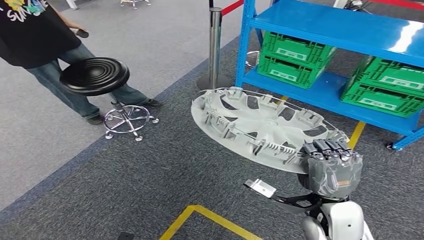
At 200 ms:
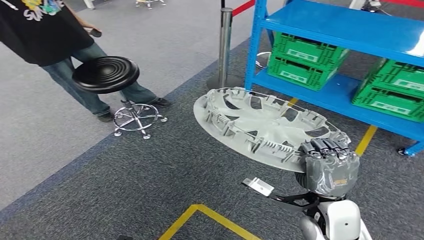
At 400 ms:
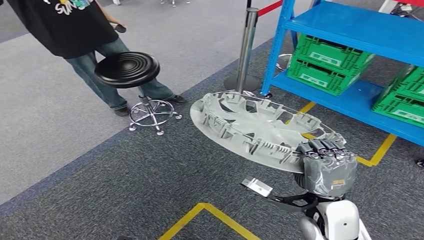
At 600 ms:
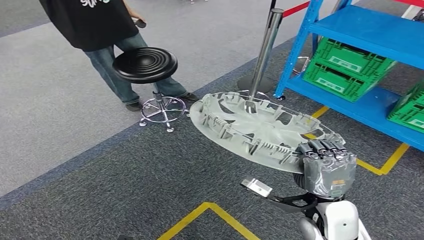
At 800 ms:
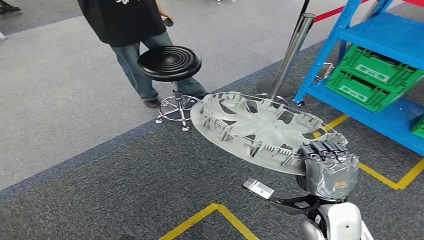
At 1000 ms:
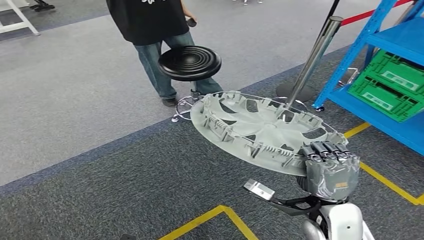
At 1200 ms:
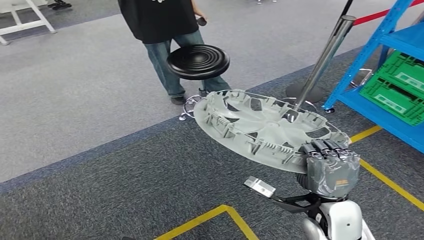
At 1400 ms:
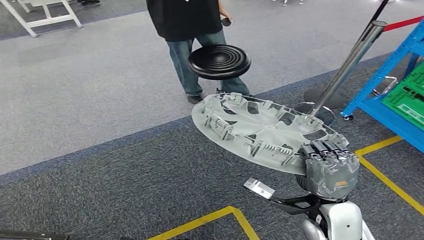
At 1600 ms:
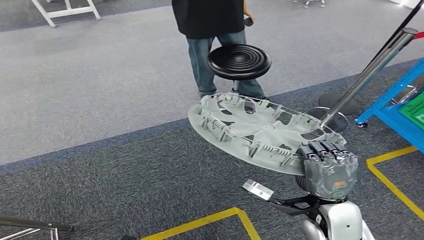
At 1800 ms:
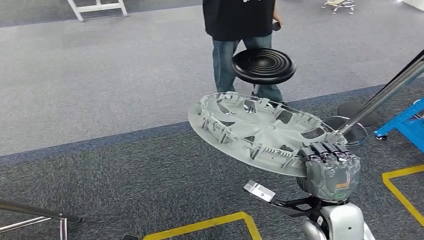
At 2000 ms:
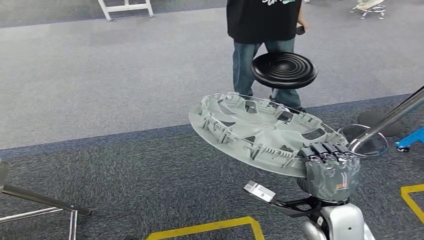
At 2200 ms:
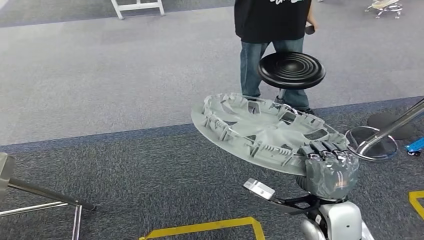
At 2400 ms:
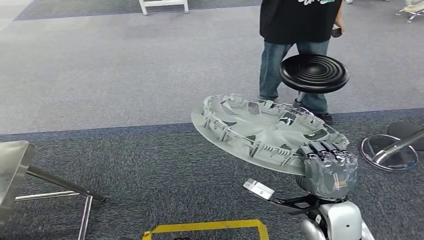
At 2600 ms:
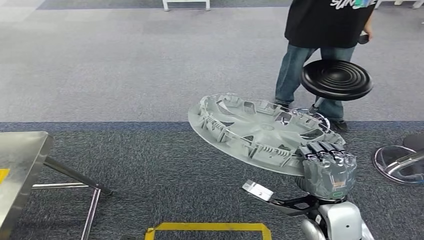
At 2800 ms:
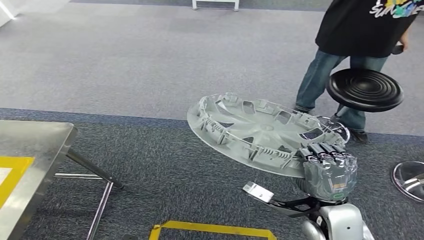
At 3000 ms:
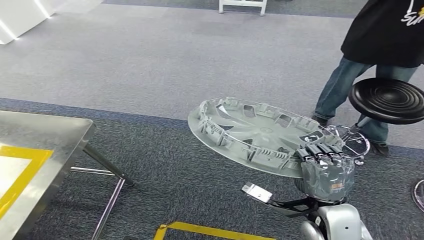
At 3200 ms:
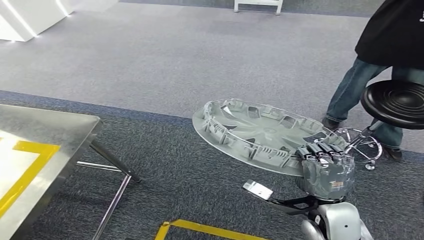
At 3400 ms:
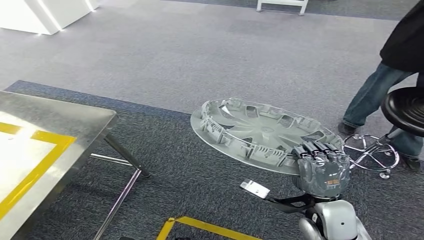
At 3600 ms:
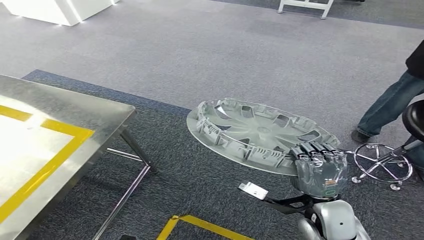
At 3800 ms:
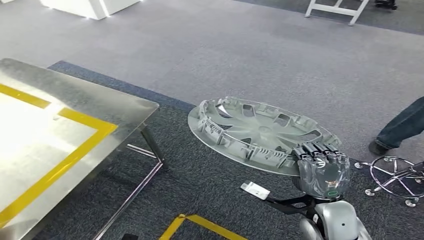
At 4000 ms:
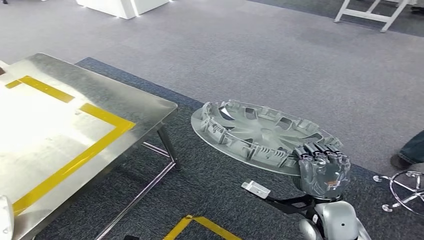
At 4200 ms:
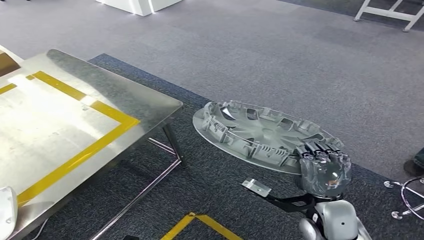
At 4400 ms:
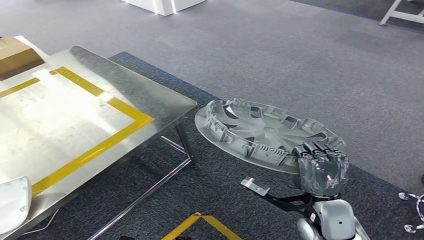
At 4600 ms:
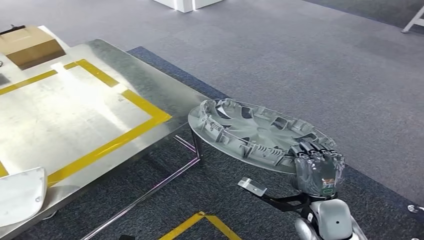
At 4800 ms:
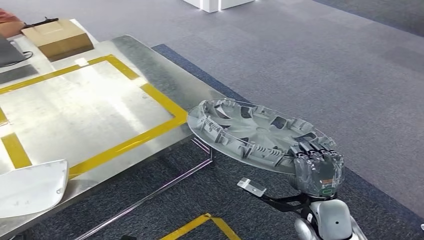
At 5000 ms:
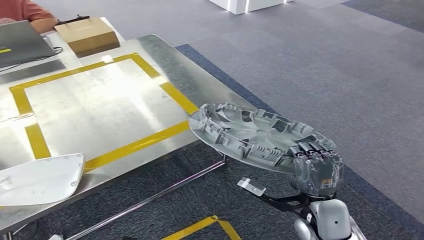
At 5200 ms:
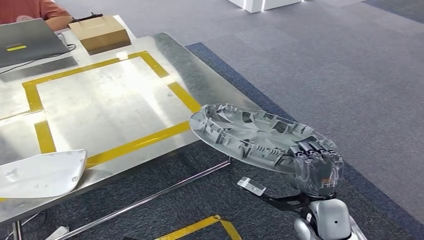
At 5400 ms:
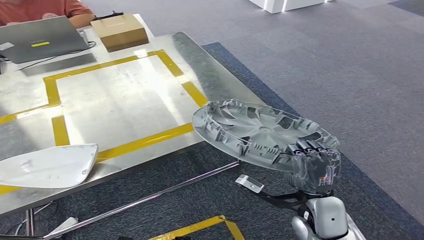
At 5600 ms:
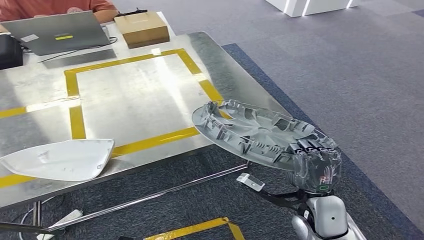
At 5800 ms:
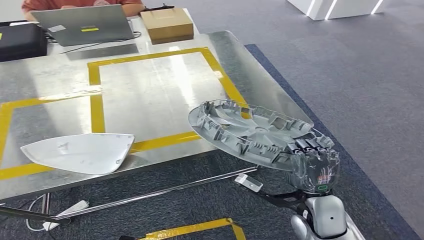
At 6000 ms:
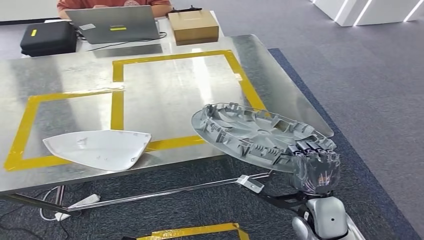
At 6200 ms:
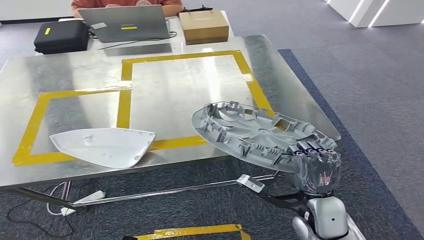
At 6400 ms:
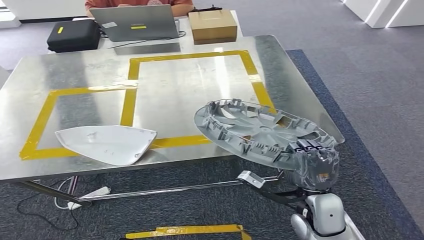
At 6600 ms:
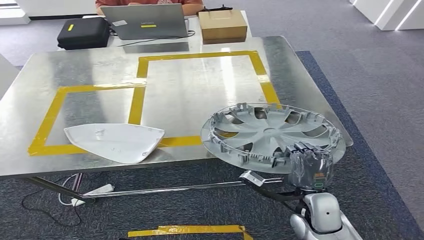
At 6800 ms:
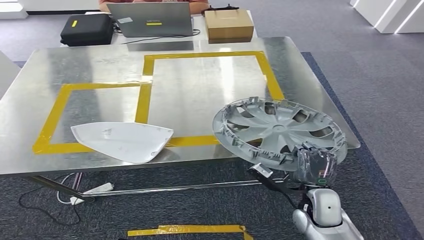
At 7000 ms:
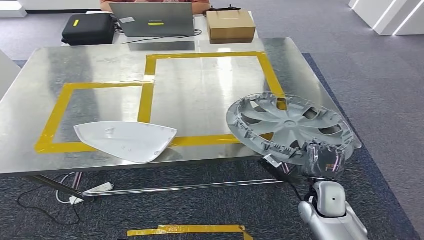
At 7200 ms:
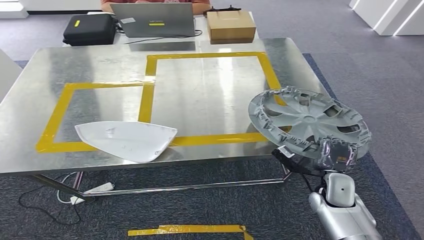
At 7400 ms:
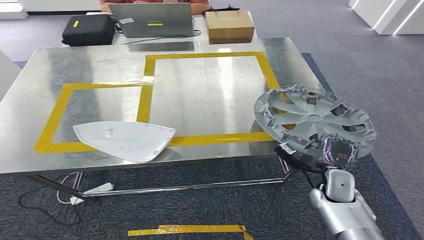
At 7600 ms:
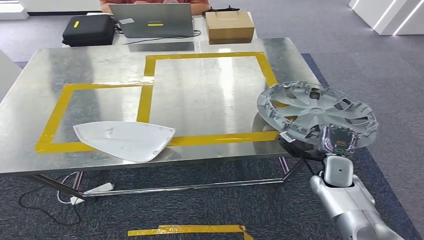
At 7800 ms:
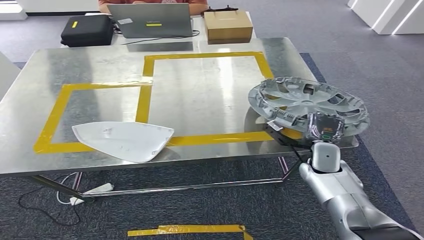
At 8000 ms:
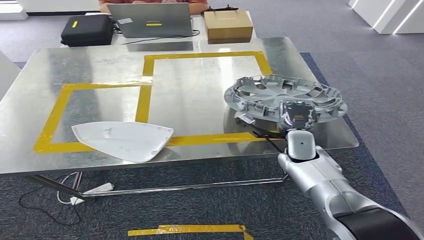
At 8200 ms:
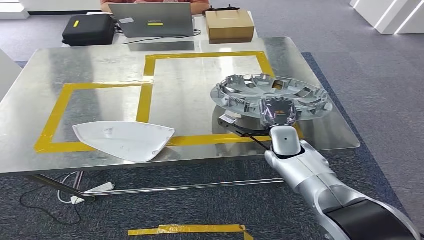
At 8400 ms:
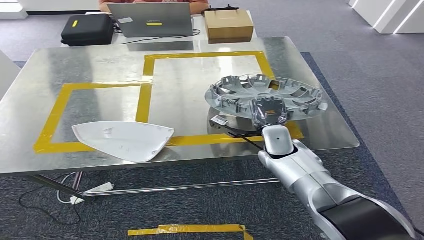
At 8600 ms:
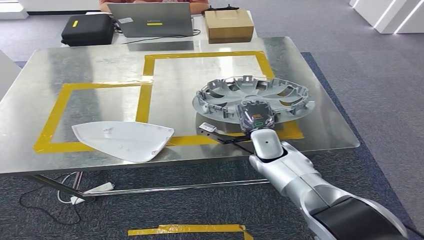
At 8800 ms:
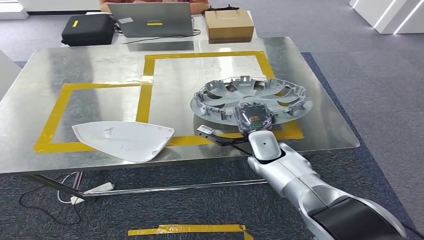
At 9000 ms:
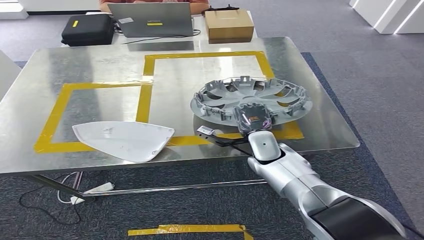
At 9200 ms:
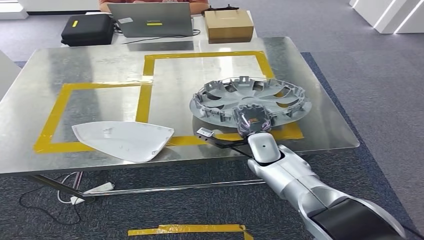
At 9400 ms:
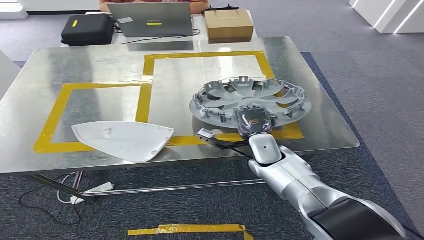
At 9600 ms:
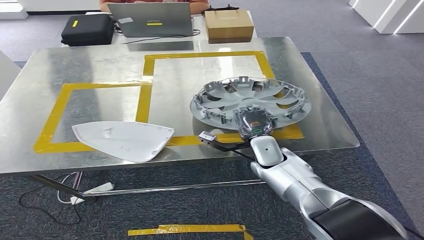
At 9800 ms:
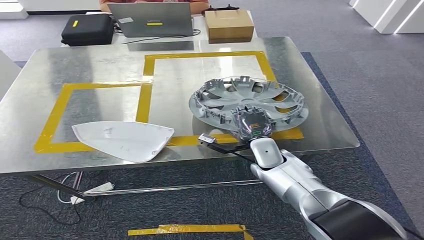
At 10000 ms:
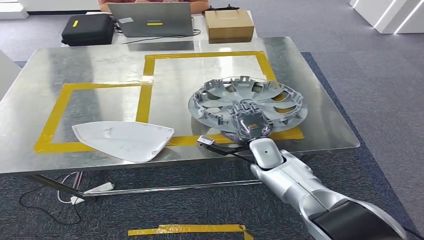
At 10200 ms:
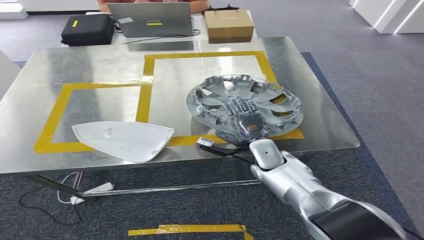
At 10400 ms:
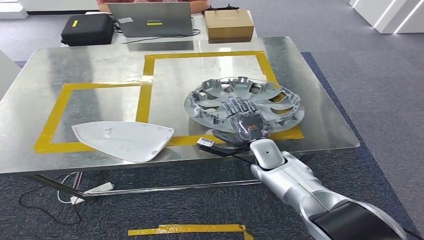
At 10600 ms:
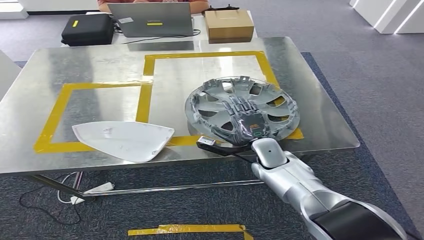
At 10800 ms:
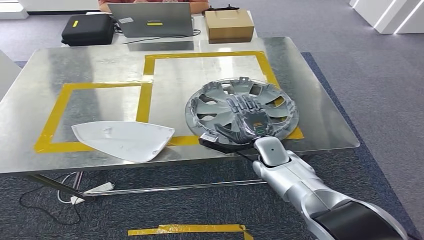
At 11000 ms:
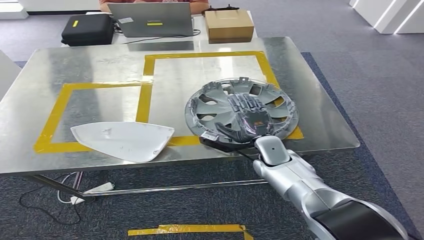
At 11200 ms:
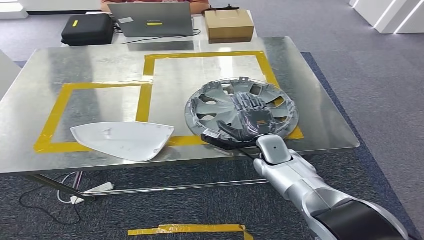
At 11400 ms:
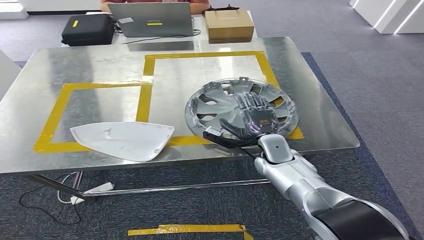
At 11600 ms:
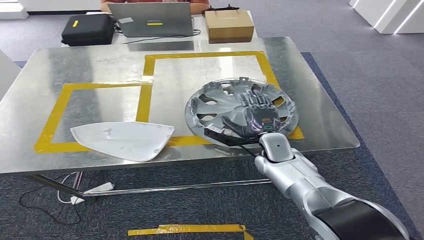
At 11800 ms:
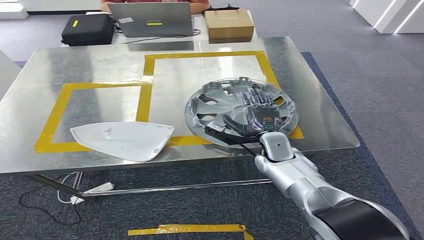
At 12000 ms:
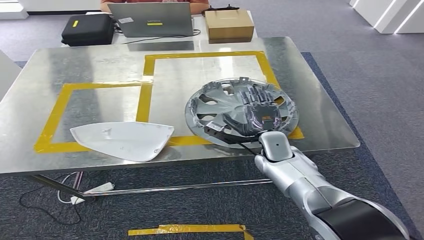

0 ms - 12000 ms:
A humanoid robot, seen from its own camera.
Step, 0 ms - 6200 ms: Move the small component to the workbench.
7600 ms - 9000 ms: The right hand moves to the left, approximately 15 cm.
9000 ms - 12000 ms: The hands move only a little.

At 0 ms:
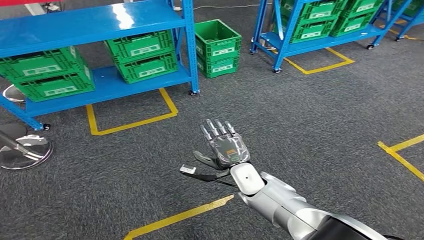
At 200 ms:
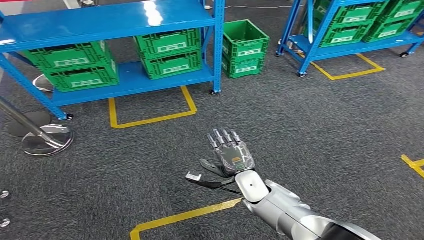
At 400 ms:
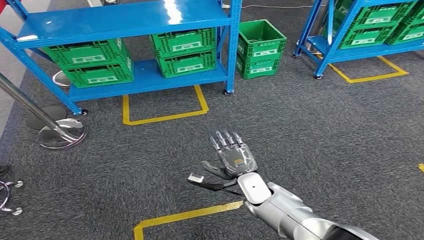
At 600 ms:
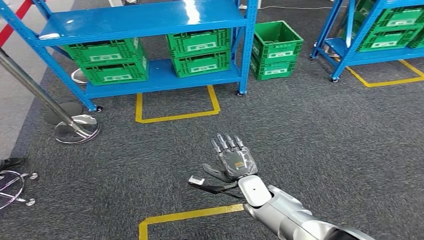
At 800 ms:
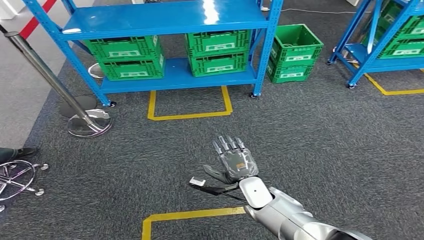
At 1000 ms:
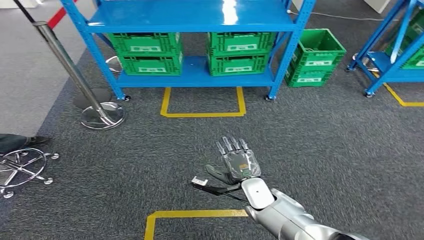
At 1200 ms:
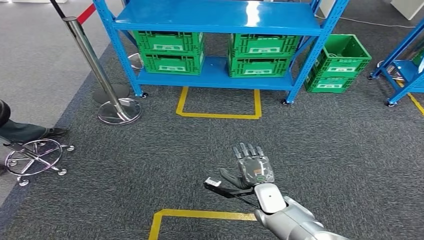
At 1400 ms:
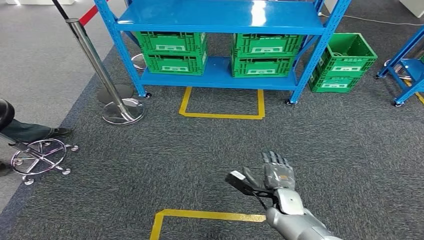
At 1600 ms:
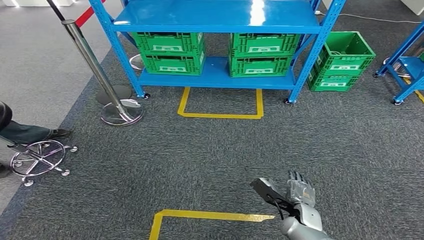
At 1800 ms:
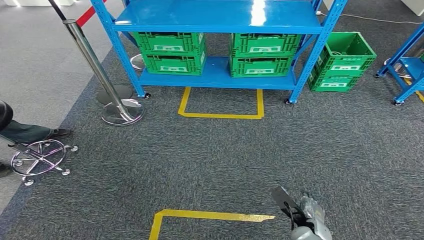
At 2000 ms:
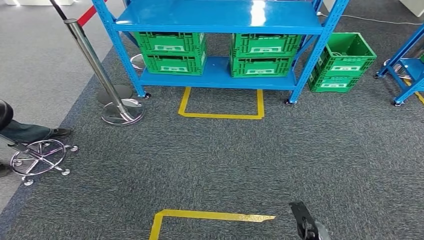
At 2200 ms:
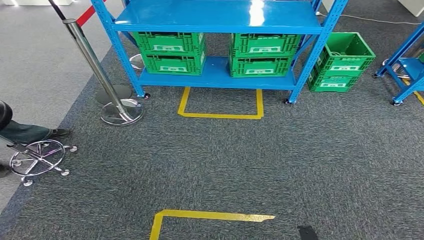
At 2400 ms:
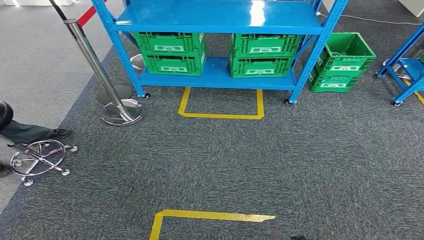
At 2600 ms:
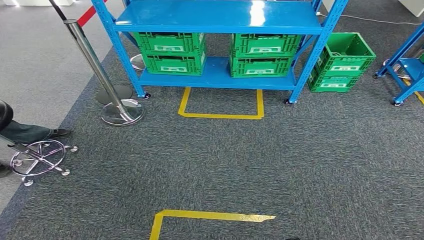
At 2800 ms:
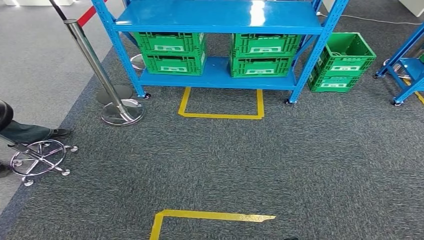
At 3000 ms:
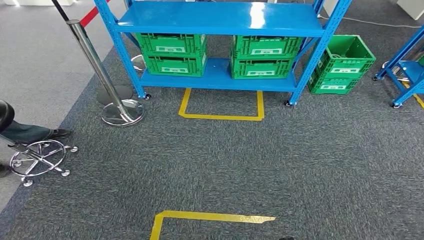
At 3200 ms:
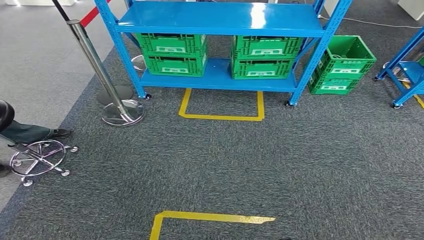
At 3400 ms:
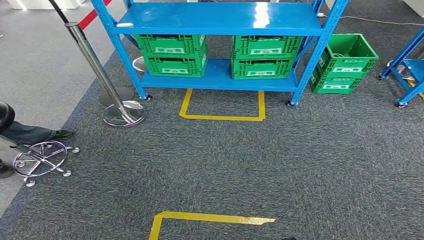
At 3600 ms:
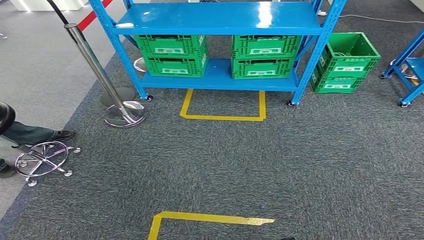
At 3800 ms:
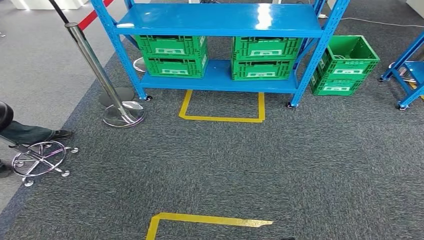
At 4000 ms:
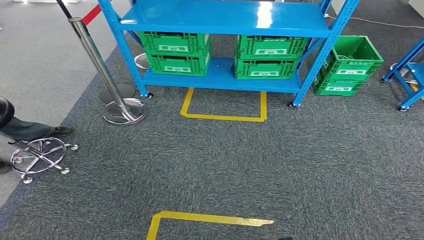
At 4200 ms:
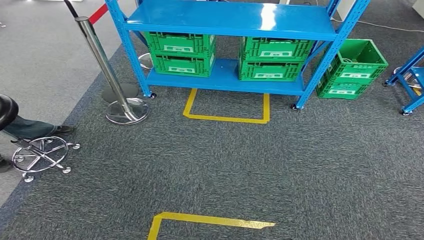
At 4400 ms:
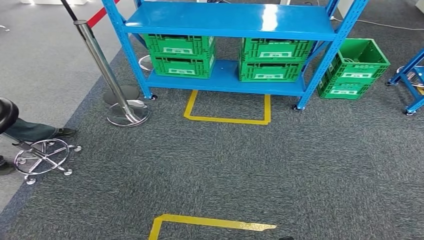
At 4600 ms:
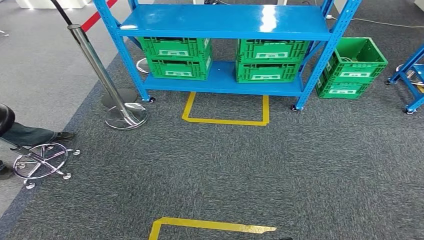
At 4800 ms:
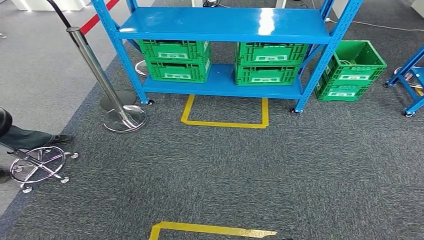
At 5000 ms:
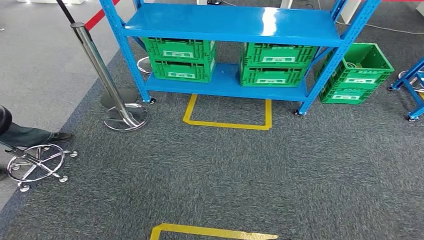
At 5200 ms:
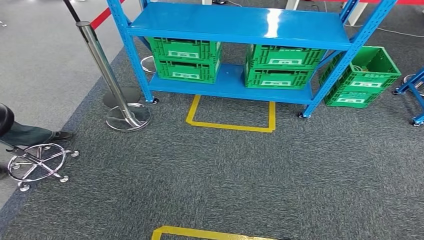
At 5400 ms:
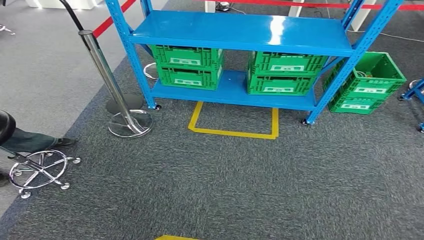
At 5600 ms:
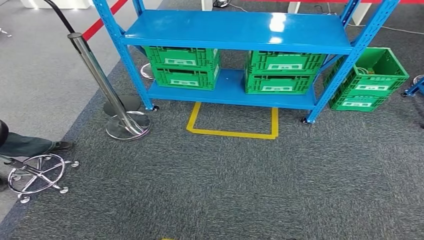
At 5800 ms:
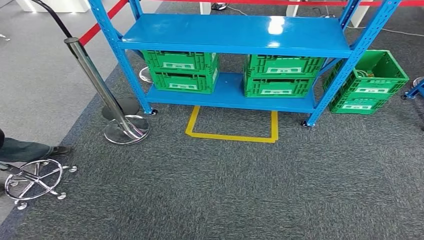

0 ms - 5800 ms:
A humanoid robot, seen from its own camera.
1400 ms - 2800 ms: The right hand heads backward and downward, covering approximately 25 cm.
